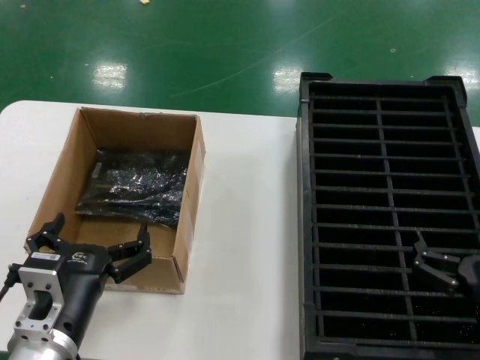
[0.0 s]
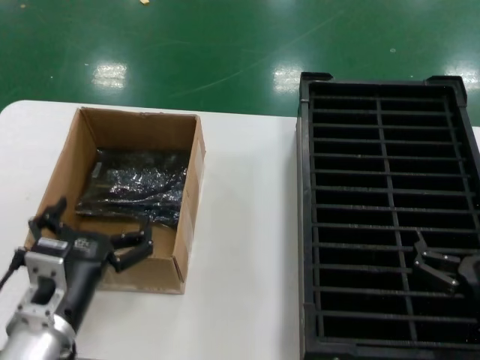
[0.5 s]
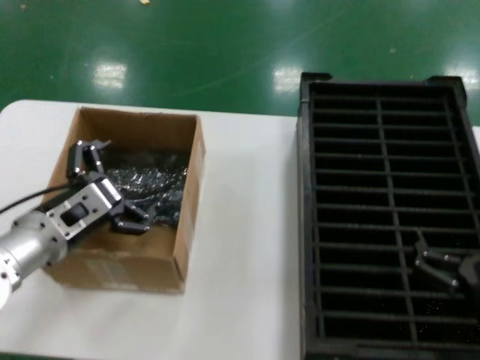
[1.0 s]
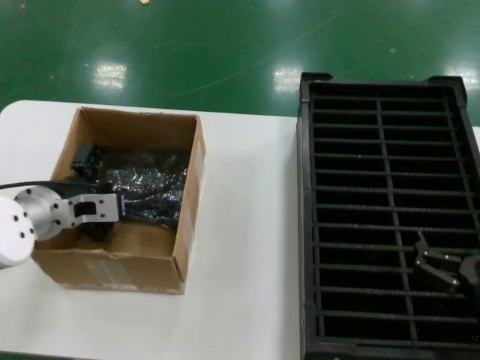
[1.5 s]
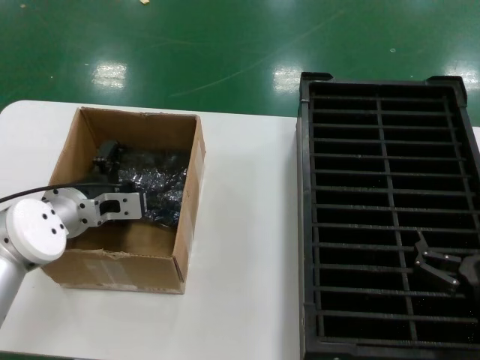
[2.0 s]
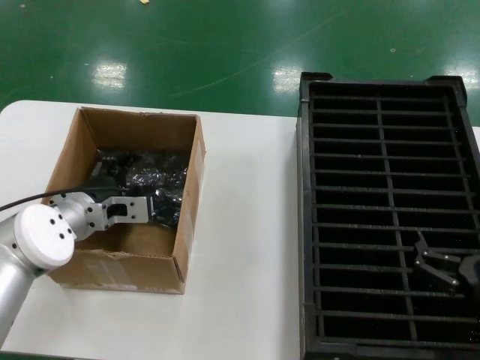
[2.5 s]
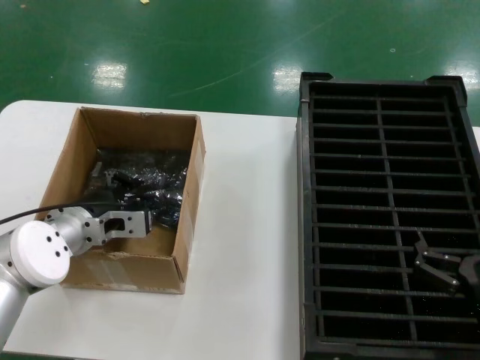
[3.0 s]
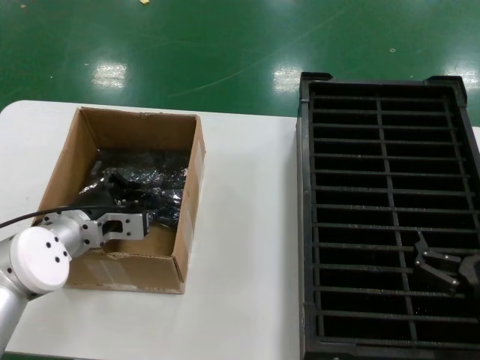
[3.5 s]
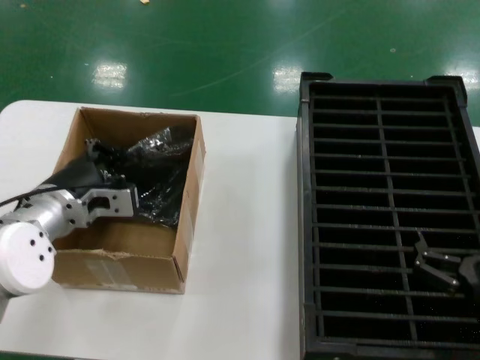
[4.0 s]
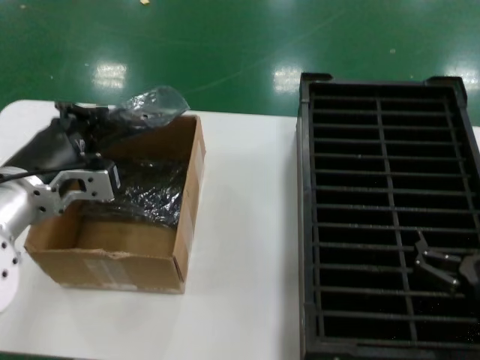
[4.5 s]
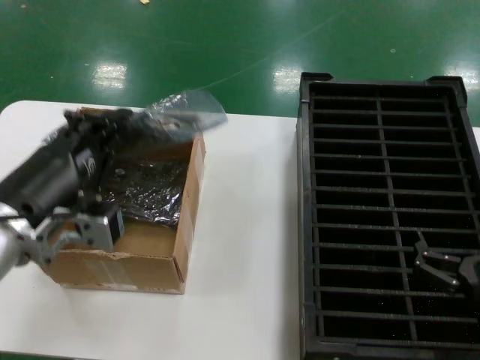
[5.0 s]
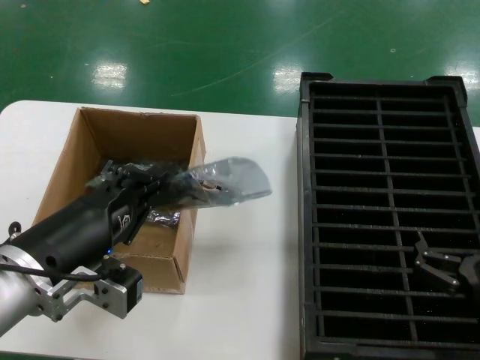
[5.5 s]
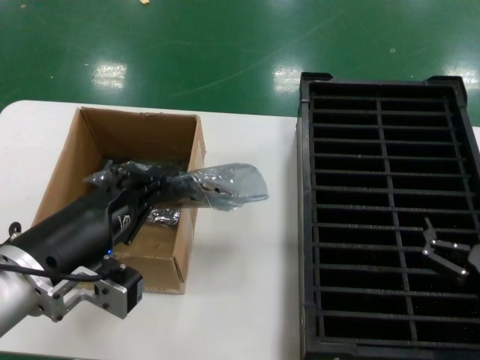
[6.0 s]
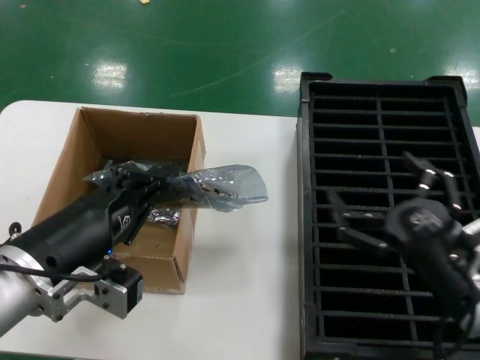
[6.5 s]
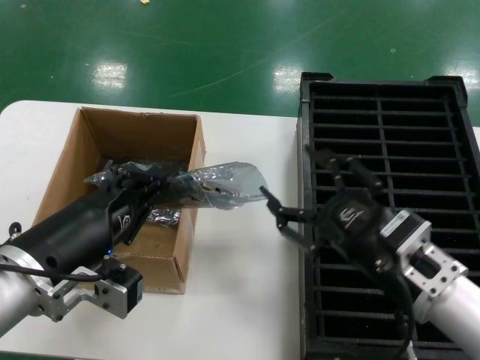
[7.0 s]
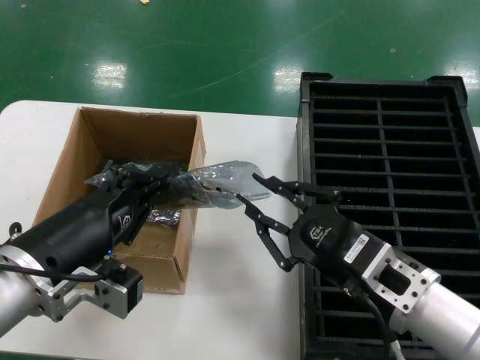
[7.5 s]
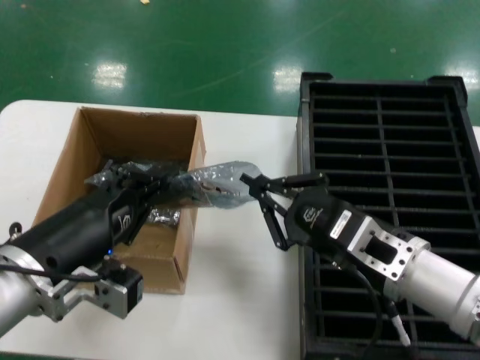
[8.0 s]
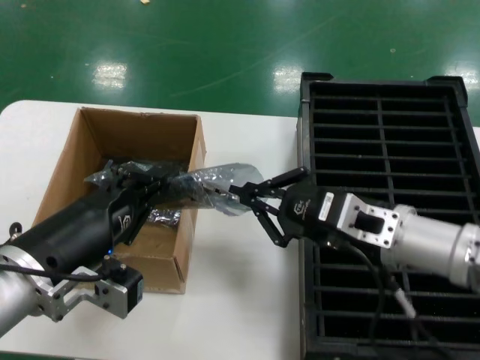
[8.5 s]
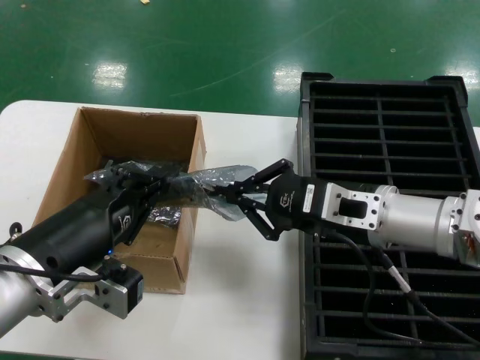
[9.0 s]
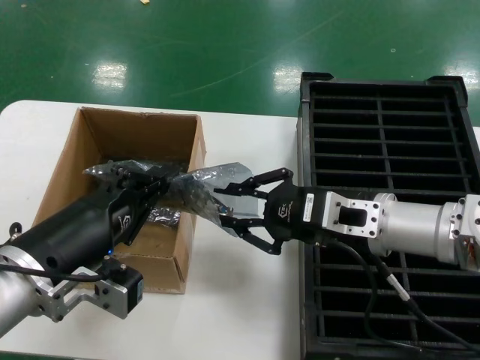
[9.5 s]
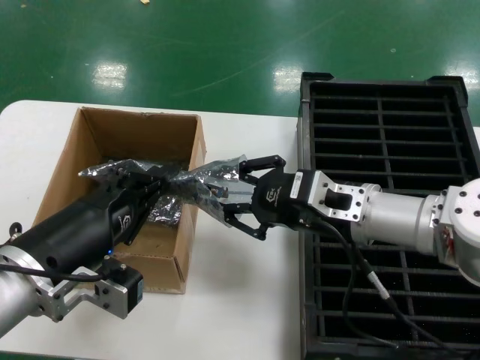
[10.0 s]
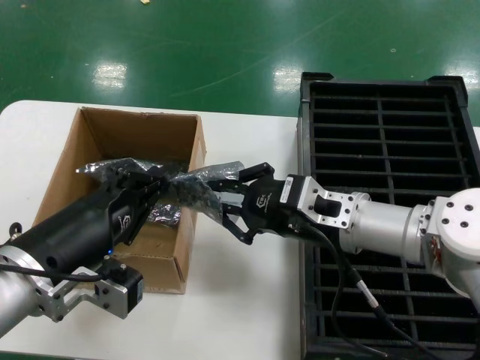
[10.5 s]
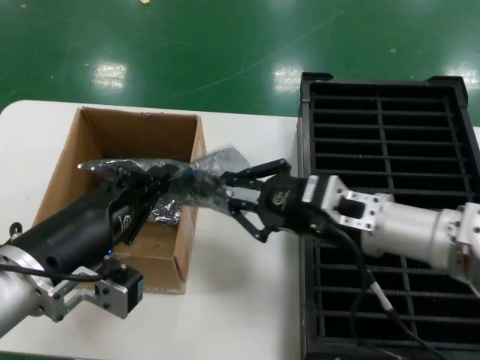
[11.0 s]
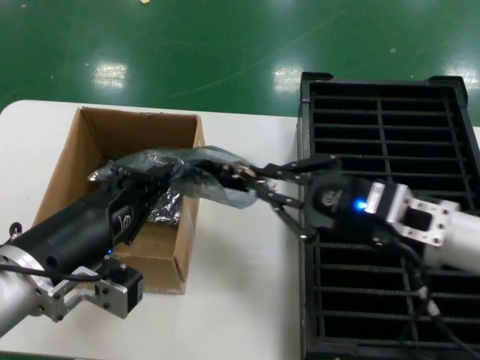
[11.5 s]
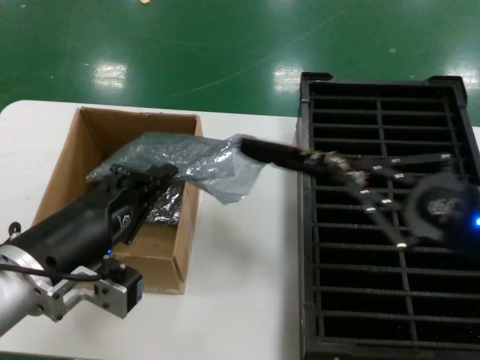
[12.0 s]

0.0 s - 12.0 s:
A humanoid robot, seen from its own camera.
Task of the whole recording: take out graphics card from box remove packaging put into black container.
Step, 0.0 s - 3.5 s: Grasp the bag.
Step, 4.0 s - 5.5 s: Lift the bag.
0.0 s - 2.0 s: The left hand is displaced forward by some 20 cm.
2.0 s - 4.0 s: The hands make only small movements.
4.0 s - 6.0 s: The left hand is displaced backward by about 15 cm.
6.0 s - 8.0 s: The right hand moves to the left, upward and forward, approximately 15 cm.
8.0 s - 10.0 s: The right hand is displaced forward by approximately 10 cm.
10.0 s - 12.0 s: The right hand is displaced to the right and backward by about 20 cm.

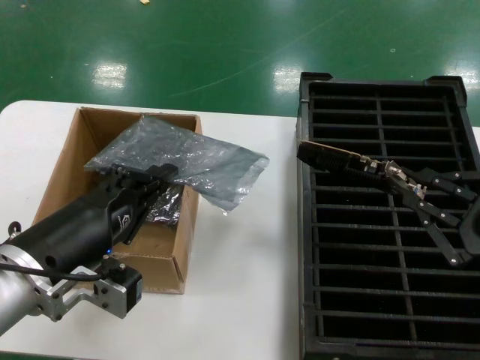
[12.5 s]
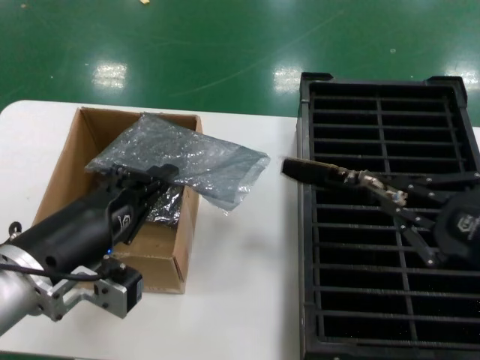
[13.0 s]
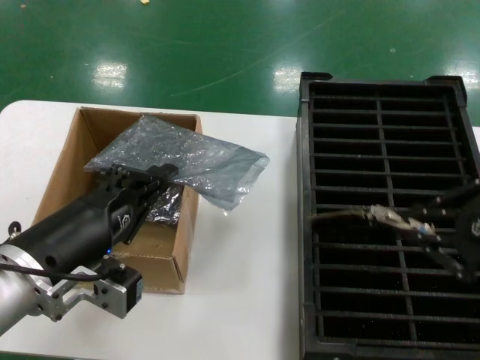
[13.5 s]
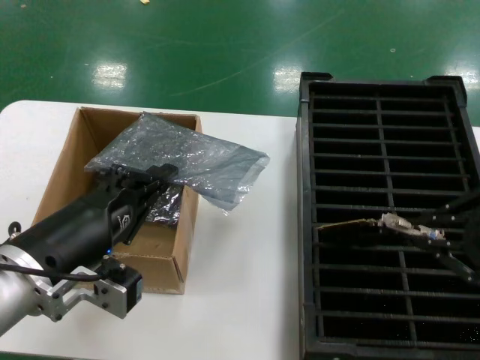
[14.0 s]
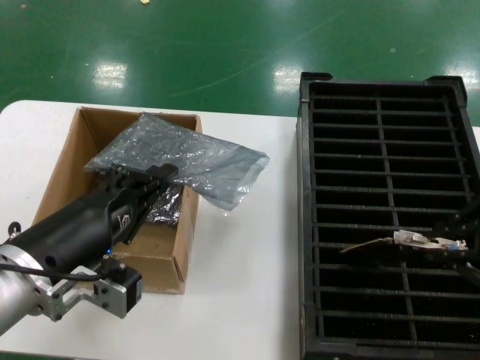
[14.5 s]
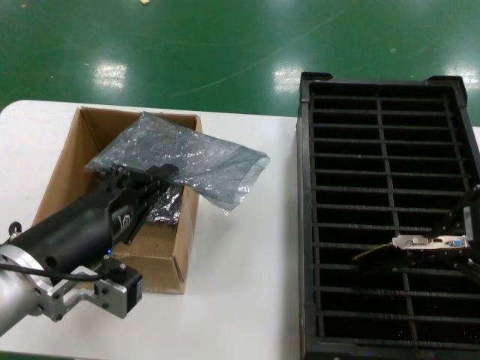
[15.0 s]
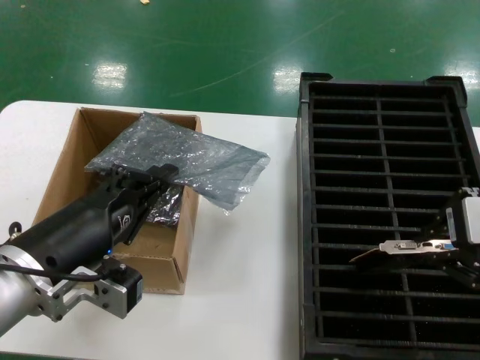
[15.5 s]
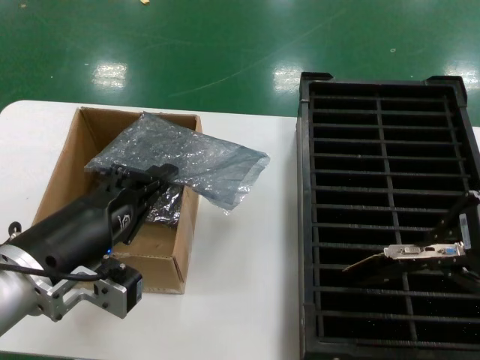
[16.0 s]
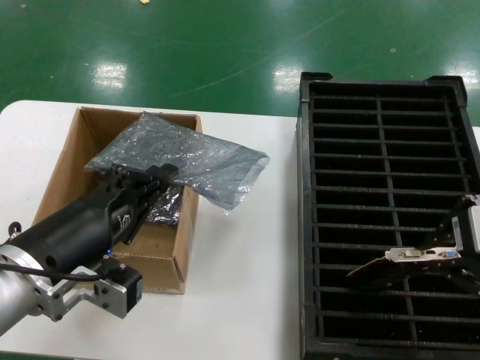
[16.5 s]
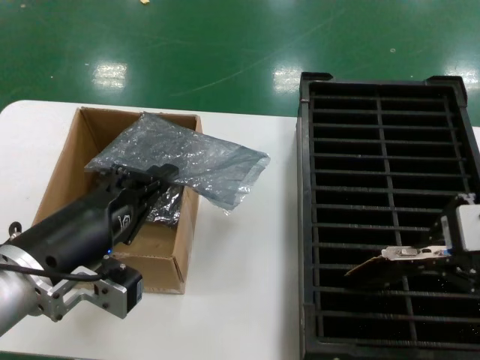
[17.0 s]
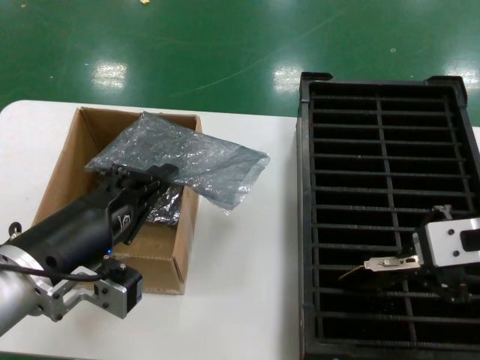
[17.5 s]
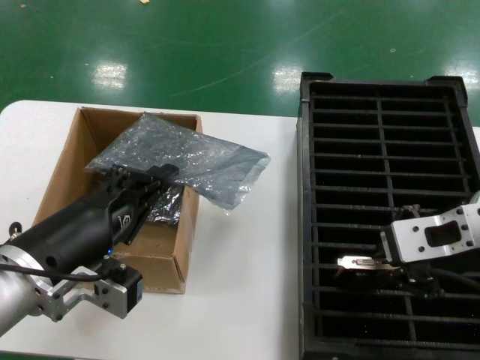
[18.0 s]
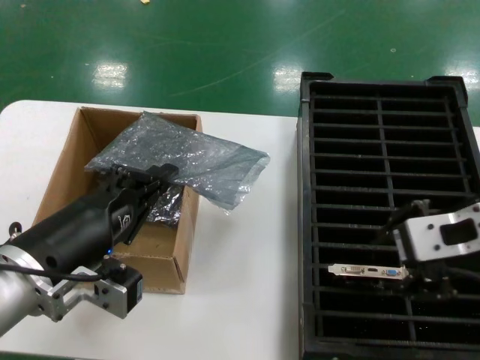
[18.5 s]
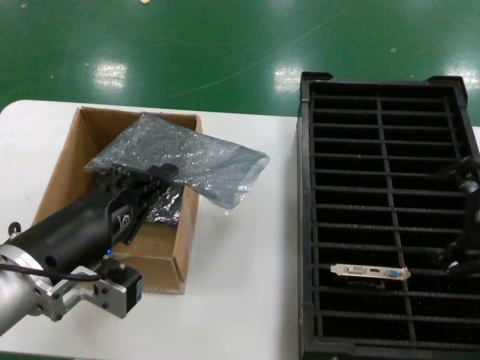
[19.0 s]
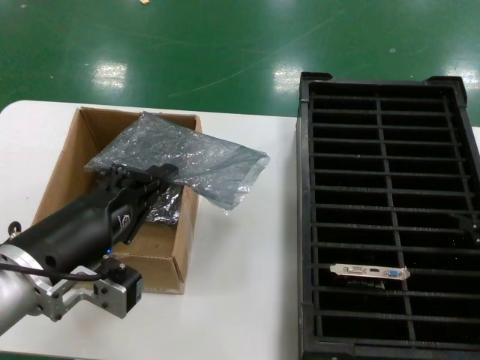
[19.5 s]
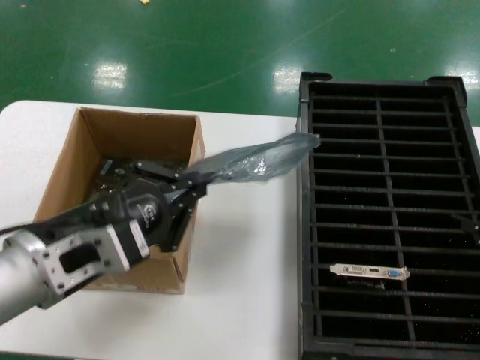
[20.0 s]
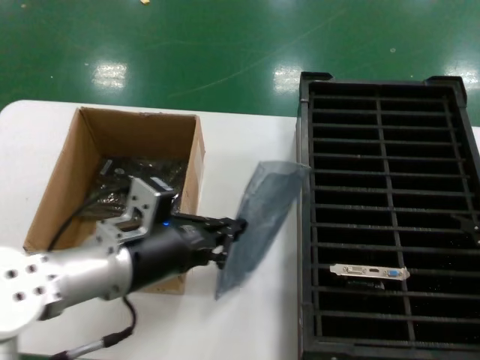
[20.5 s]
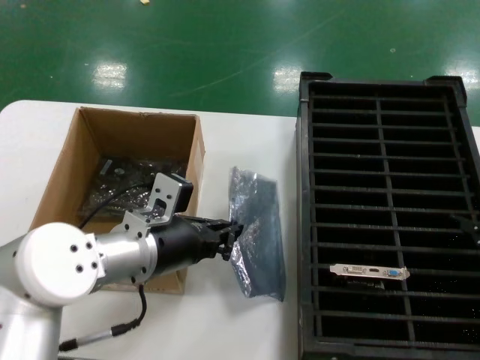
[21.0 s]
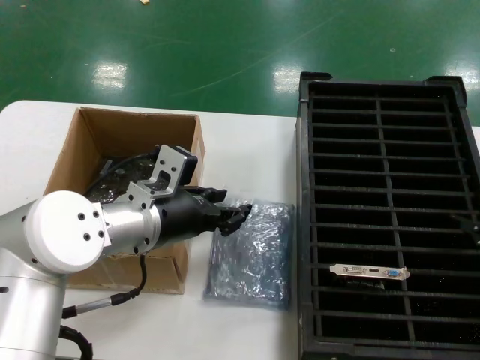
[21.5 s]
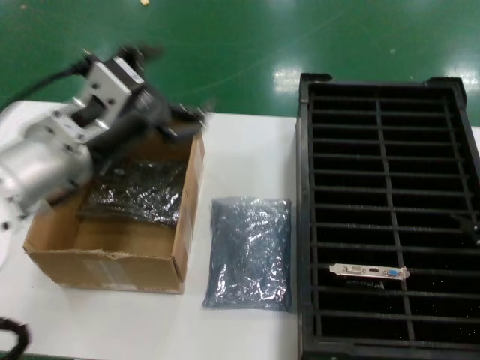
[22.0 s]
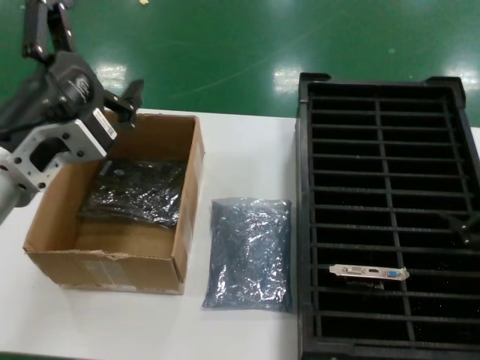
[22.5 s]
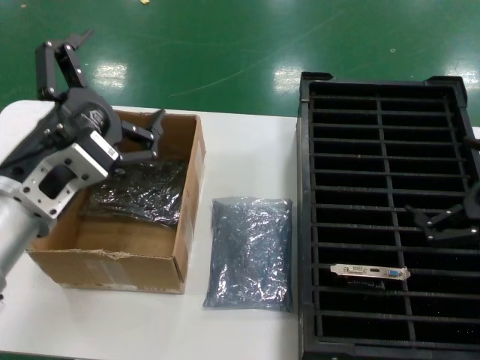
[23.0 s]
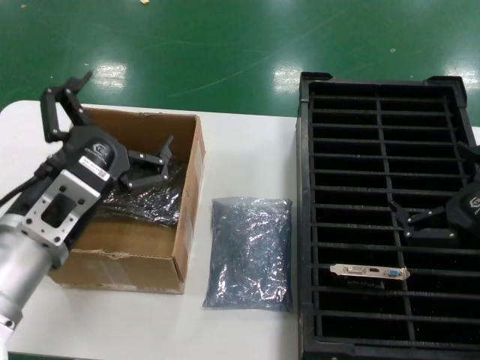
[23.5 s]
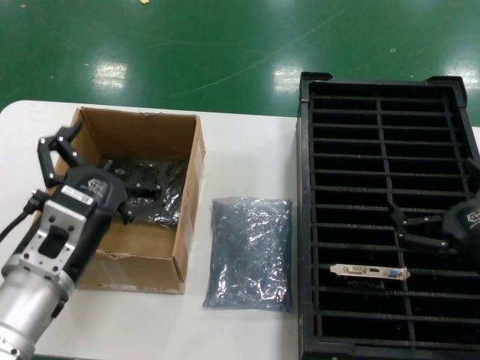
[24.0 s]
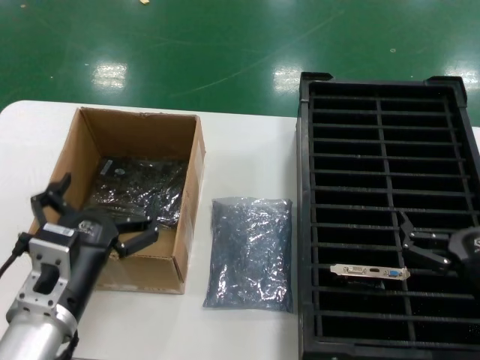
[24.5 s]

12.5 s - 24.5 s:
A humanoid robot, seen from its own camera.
Task of the whole recording: take out graphics card from box remove packaging put into black container.
Step, 12.5 s - 18.5 s: Place the hard disk in the hard disk enclosure.
Step, 19.0 s - 22.0 s: Place the down the bag.
12.5 s - 14.5 s: The right hand is displaced upward by some 10 cm.
14.5 s - 16.5 s: The right hand shifts by about 5 cm.
16.5 s - 18.5 s: The right hand ends up some 5 cm from where it was.
18.5 s - 20.5 s: The right hand heads to the right, covering about 15 cm; the left hand heads forward, covering roughly 5 cm.
20.5 s - 22.5 s: The left hand travels upward by some 10 cm, and reaches some 10 cm forward, then returns.
22.5 s - 24.5 s: The right hand shifts some 20 cm downward and to the left. The left hand shifts approximately 15 cm downward.

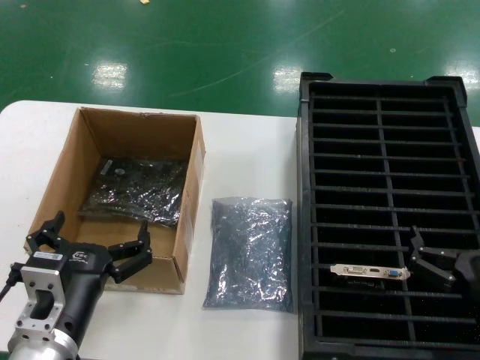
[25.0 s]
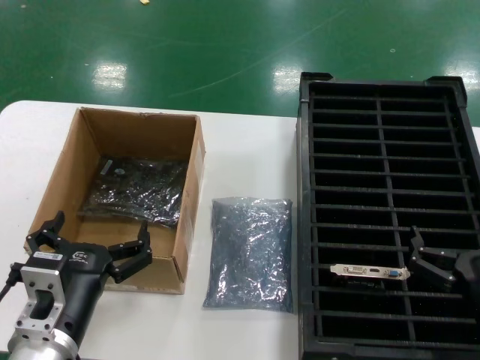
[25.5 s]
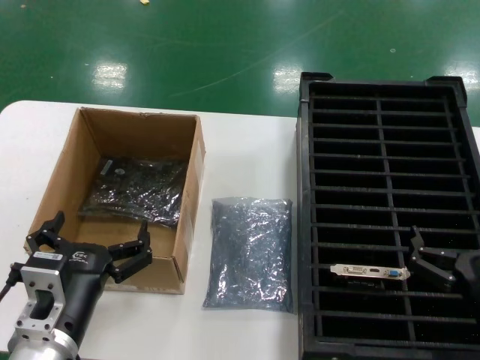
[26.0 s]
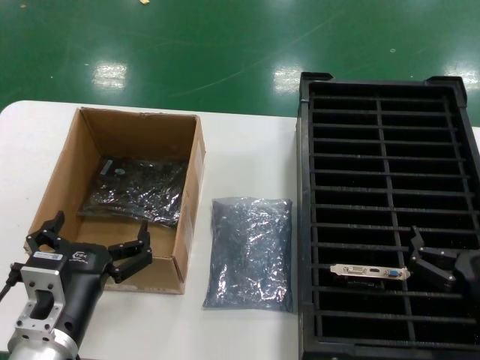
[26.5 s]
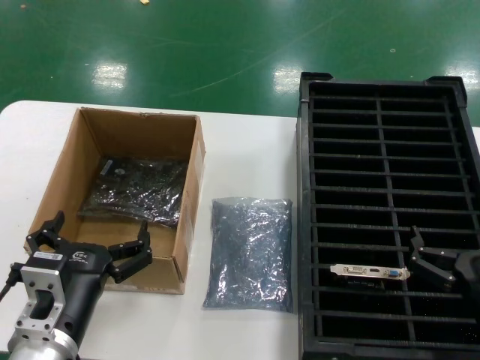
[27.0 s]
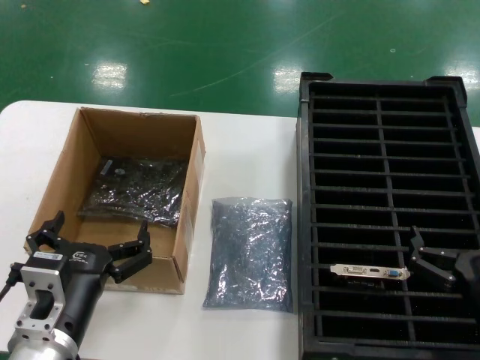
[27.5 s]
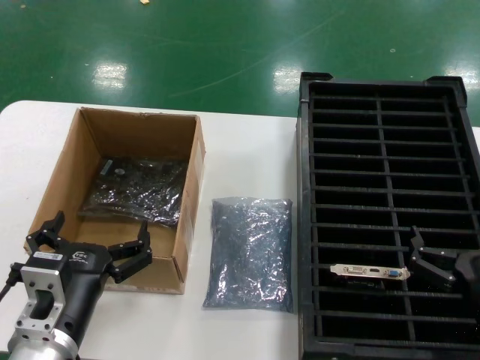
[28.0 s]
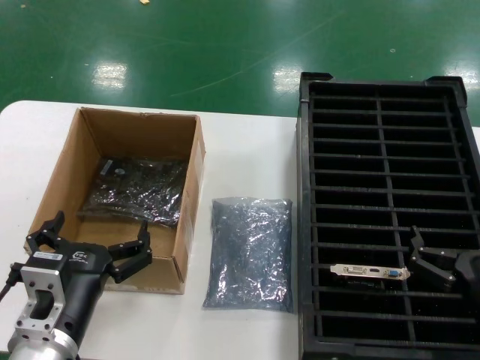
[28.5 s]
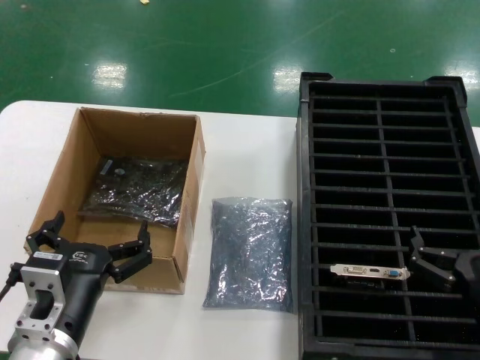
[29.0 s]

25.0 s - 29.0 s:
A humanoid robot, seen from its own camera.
Task of the whole recording: take out graphics card from box remove packaging put into black container.
25.0 s - 29.0 s: The two hands keep their place.
